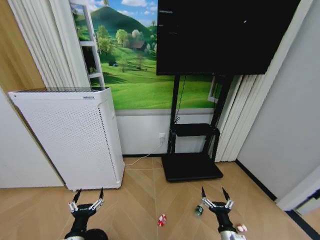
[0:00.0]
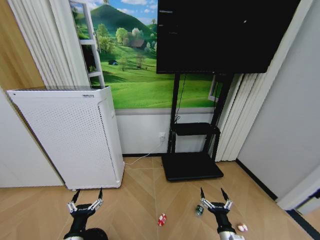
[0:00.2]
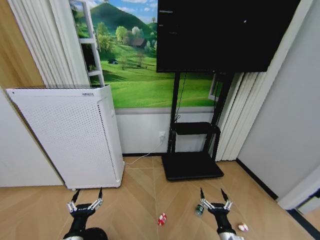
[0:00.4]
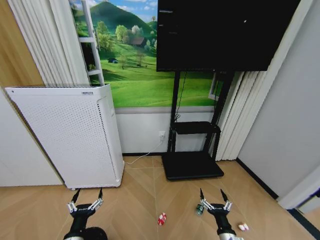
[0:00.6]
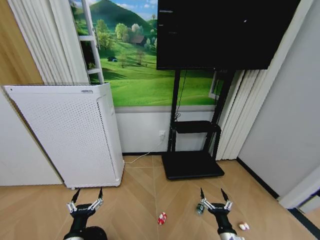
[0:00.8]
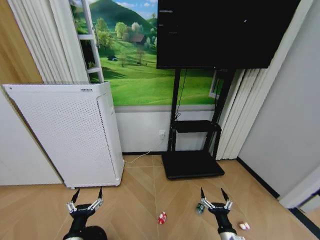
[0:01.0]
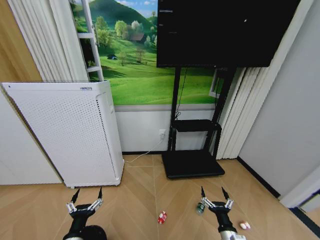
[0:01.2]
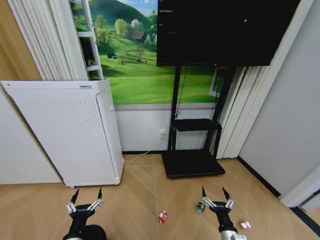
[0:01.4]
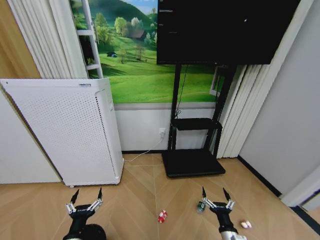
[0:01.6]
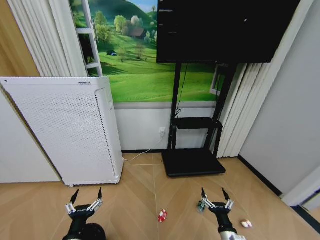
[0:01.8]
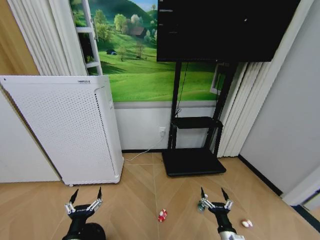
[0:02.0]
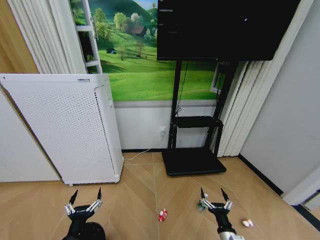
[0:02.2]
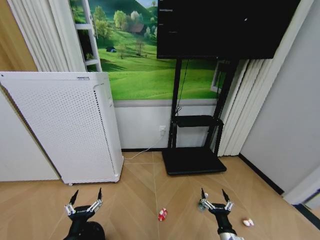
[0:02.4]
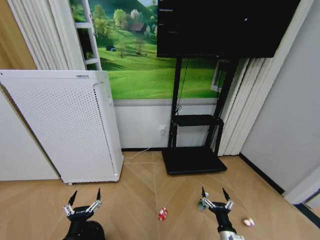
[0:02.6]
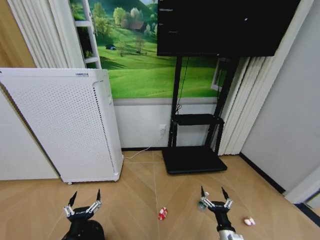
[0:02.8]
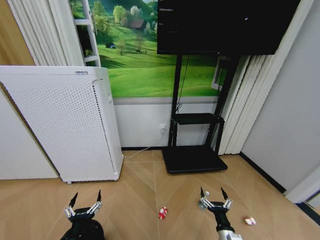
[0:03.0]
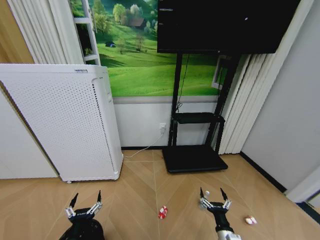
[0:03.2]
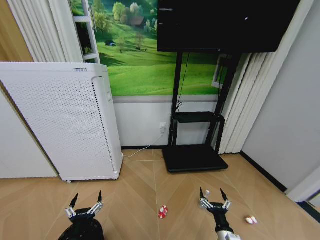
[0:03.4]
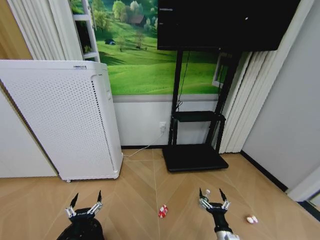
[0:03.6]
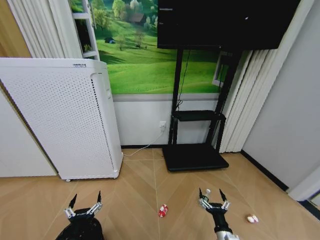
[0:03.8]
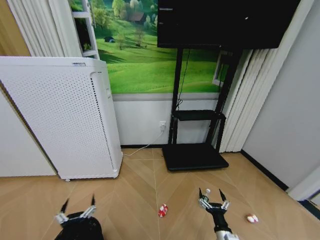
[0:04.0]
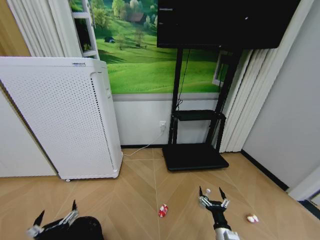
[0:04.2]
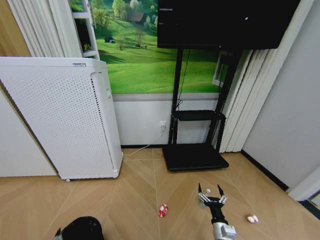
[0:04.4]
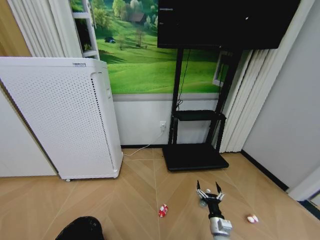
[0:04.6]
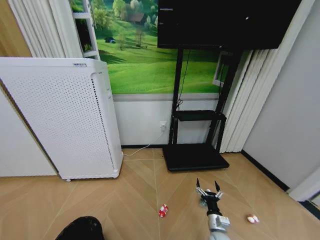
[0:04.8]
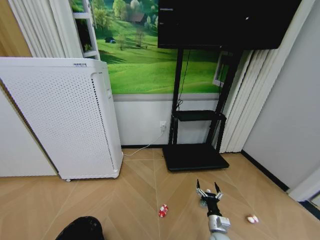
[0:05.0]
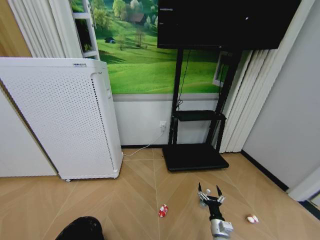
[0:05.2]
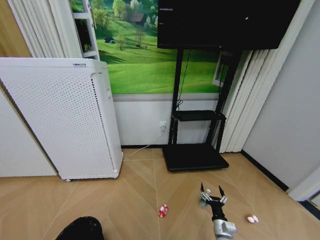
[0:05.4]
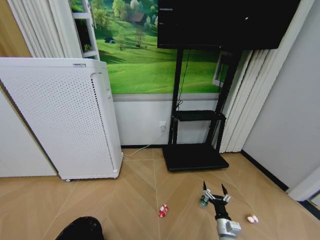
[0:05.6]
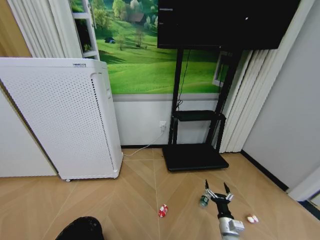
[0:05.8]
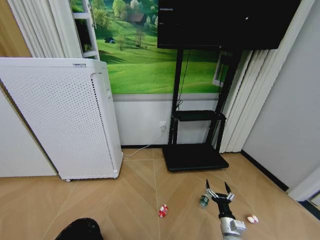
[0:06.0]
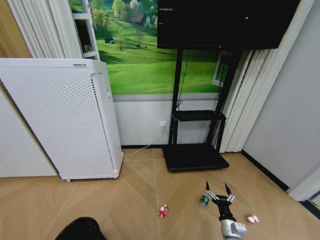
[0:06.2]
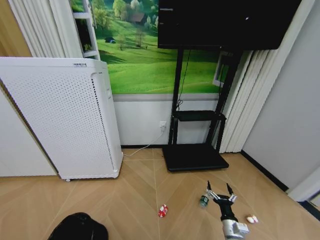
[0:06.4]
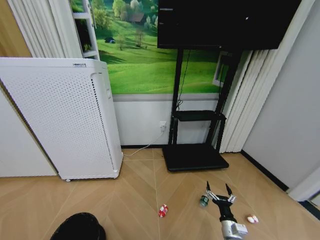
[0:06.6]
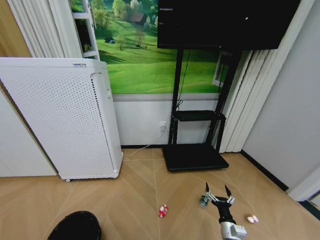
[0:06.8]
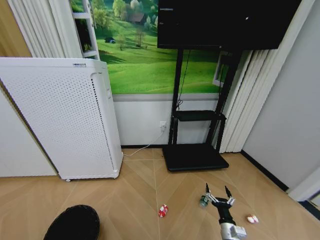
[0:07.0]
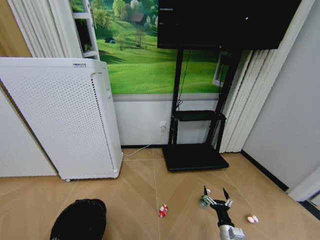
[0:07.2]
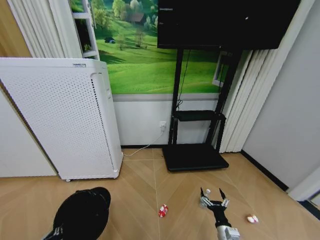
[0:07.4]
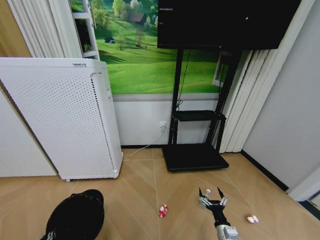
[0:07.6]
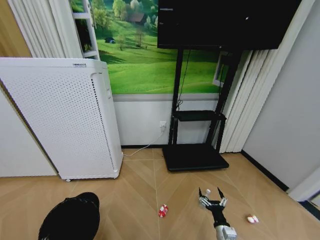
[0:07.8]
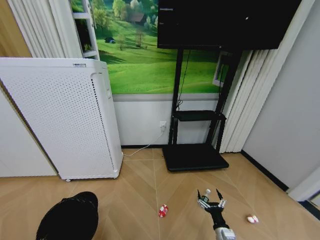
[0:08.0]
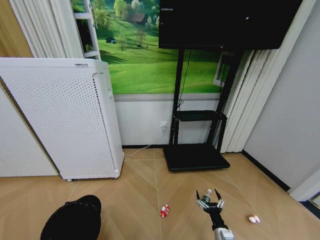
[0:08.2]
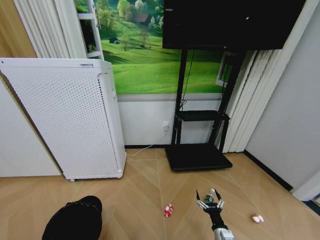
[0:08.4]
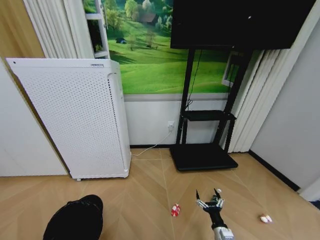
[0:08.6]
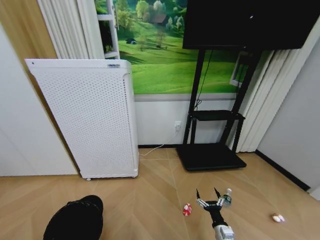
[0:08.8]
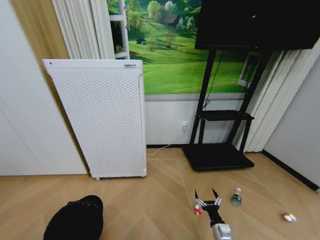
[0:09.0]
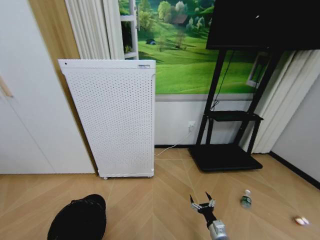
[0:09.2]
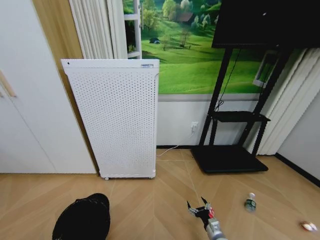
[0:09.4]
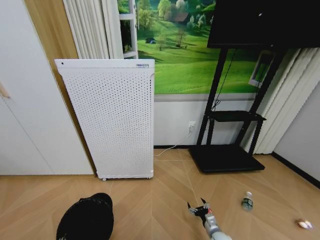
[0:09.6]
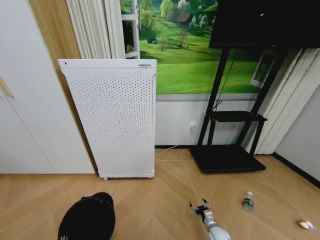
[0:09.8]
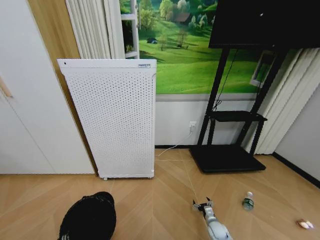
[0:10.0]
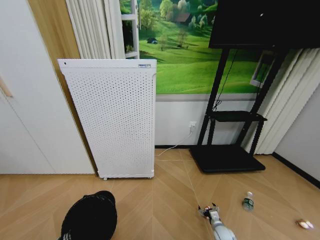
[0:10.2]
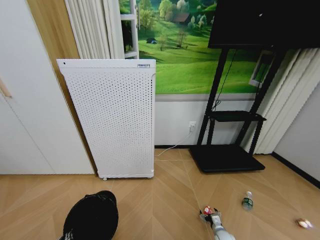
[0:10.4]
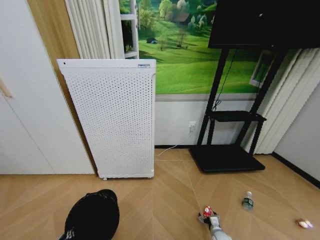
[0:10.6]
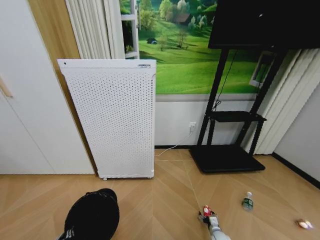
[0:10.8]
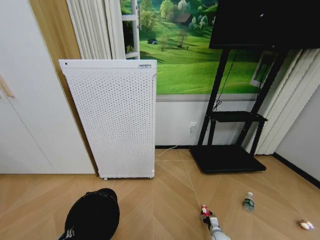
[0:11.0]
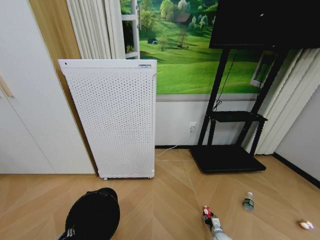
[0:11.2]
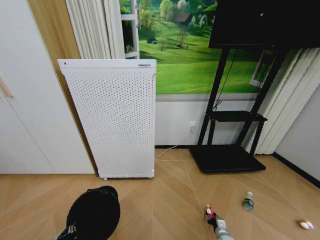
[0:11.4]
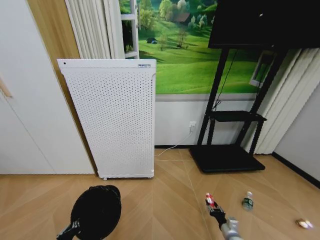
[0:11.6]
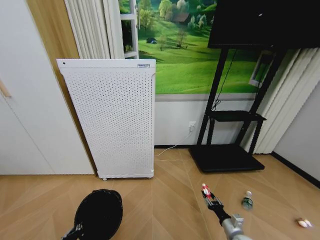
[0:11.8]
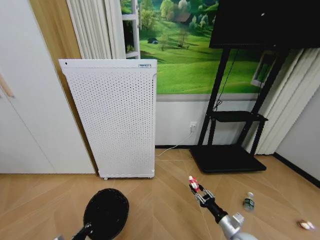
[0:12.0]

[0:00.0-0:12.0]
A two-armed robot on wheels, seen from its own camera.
Task of the whole recording: Pick up the trash bin and place the garbage on the floor into it.
0.0 to 1.6 s: Both grippers stay about where they are.
1.6 to 3.0 s: Both grippers stay about where they are.
3.0 to 4.4 s: The left gripper goes about 10 cm upward and backward.
4.4 to 6.0 s: The right gripper shifts by about 5 cm. The left gripper travels downward and to the left by some 15 cm.
6.0 to 7.6 s: The left gripper closes up.
9.0 to 10.4 s: The right gripper is displaced downward, to the right and forward by approximately 15 cm; the left gripper shifts some 5 cm to the right.
10.4 to 12.0 s: The left gripper heads forward, covering about 5 cm, while the right gripper is displaced upward by roughly 20 cm, and closes.

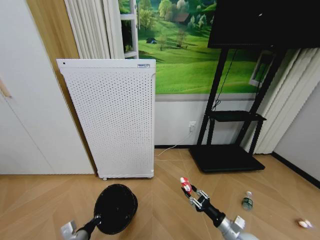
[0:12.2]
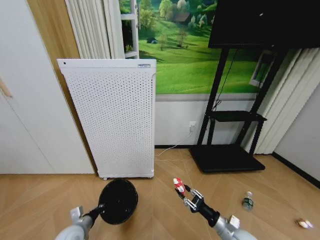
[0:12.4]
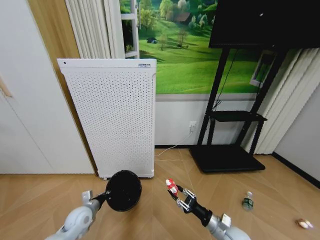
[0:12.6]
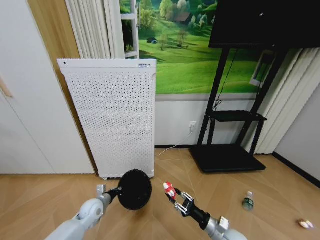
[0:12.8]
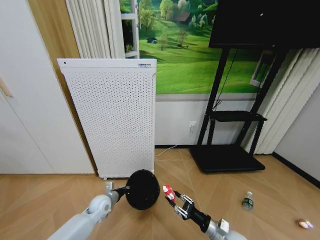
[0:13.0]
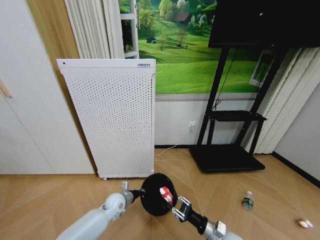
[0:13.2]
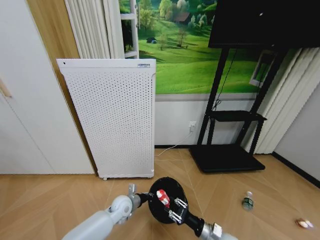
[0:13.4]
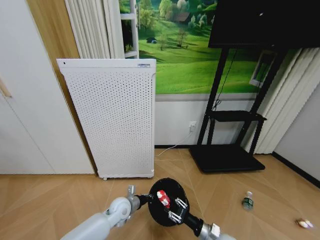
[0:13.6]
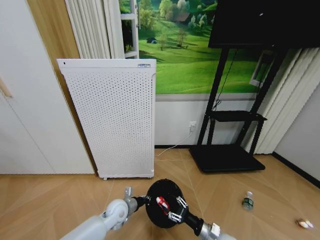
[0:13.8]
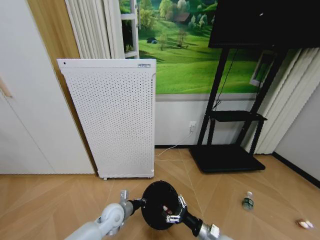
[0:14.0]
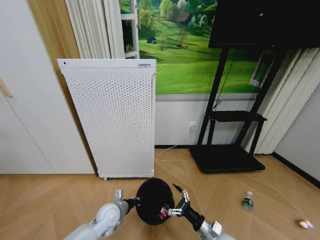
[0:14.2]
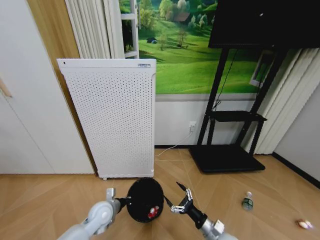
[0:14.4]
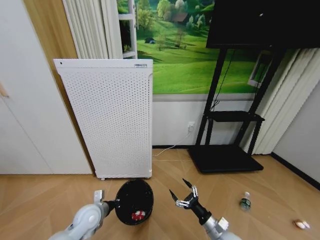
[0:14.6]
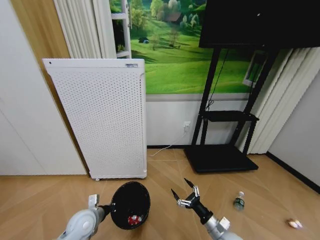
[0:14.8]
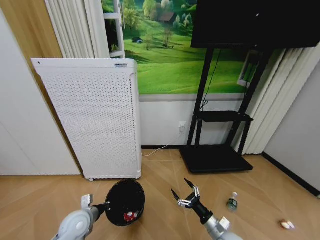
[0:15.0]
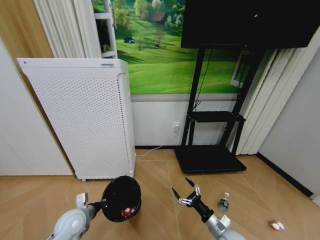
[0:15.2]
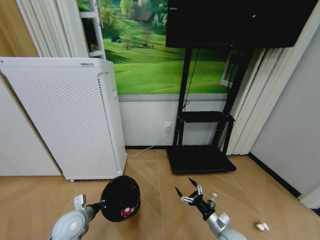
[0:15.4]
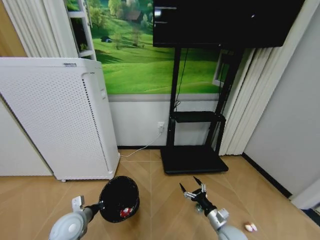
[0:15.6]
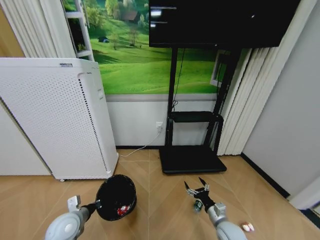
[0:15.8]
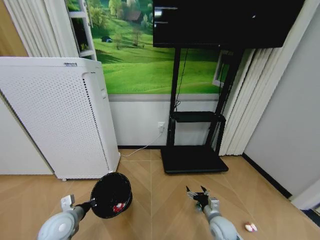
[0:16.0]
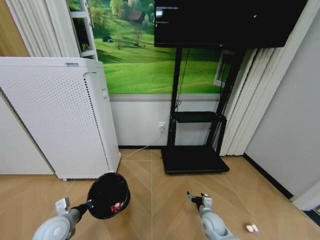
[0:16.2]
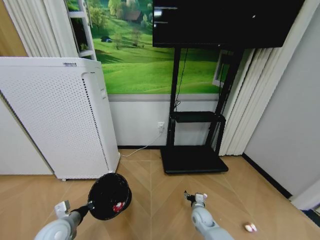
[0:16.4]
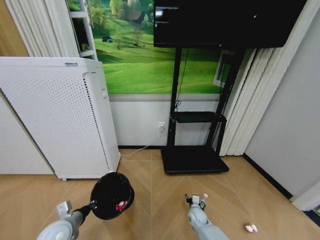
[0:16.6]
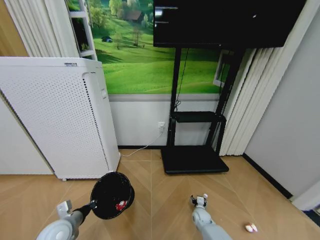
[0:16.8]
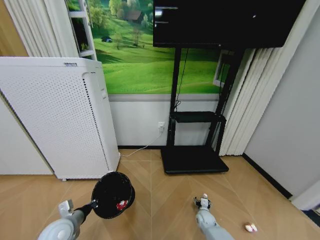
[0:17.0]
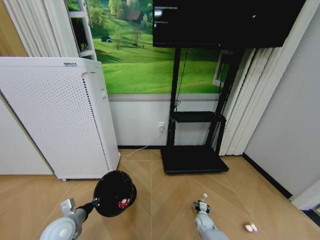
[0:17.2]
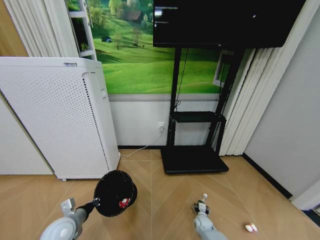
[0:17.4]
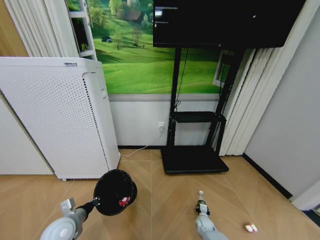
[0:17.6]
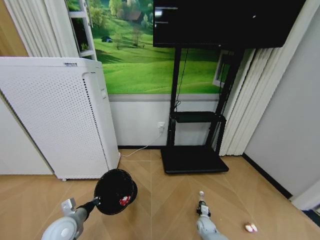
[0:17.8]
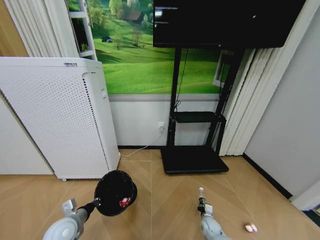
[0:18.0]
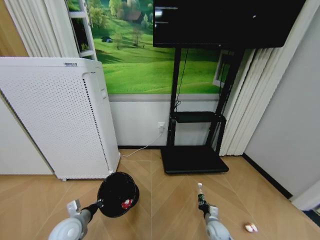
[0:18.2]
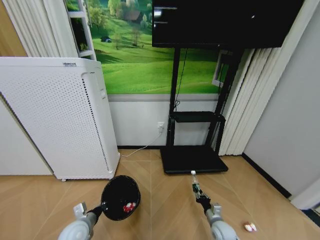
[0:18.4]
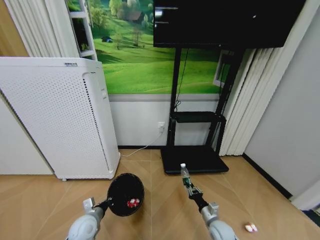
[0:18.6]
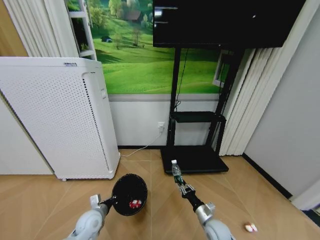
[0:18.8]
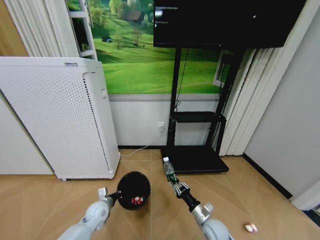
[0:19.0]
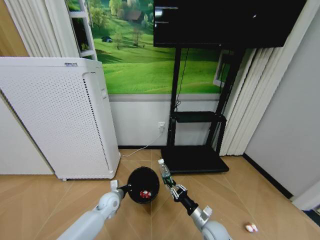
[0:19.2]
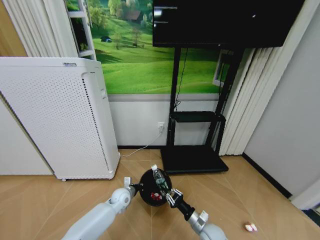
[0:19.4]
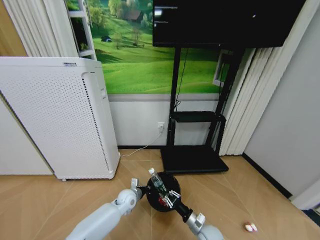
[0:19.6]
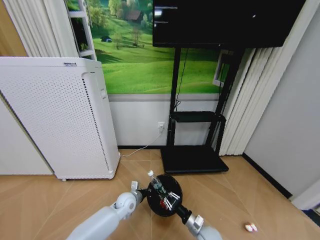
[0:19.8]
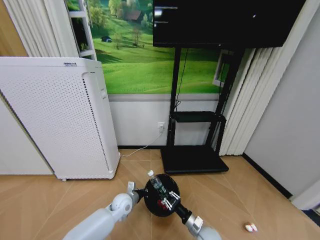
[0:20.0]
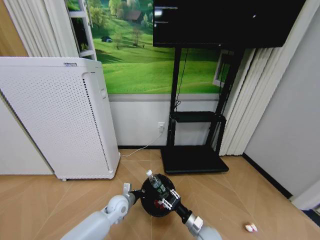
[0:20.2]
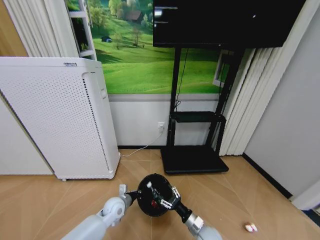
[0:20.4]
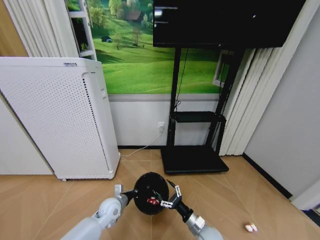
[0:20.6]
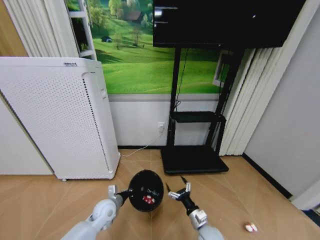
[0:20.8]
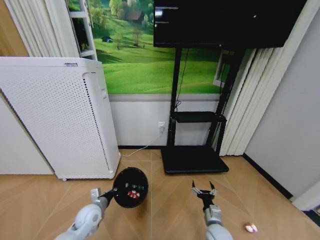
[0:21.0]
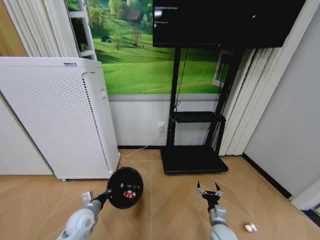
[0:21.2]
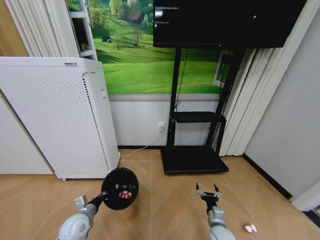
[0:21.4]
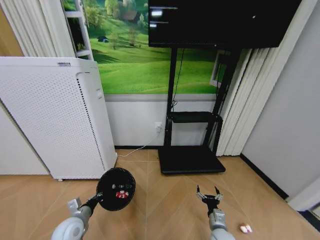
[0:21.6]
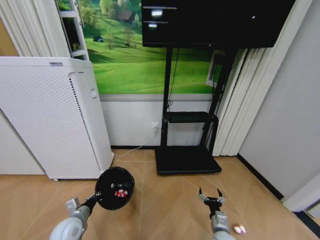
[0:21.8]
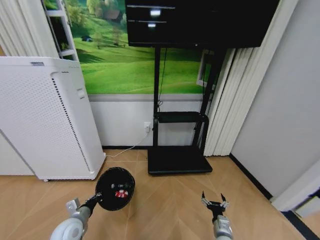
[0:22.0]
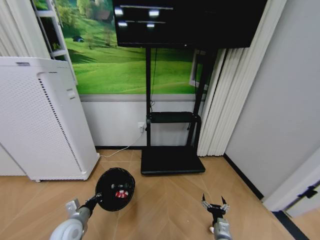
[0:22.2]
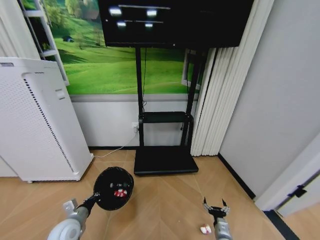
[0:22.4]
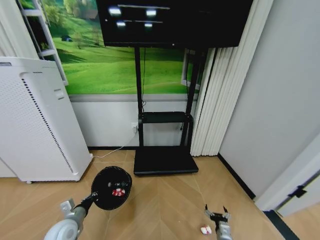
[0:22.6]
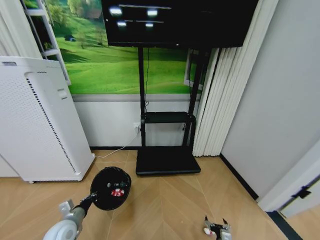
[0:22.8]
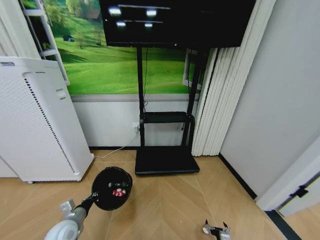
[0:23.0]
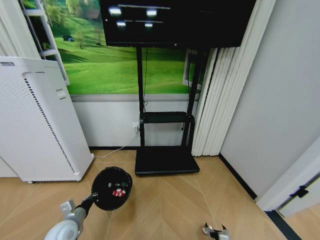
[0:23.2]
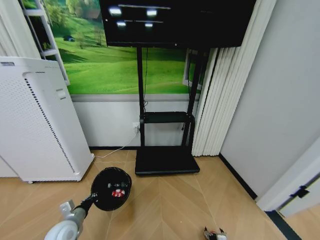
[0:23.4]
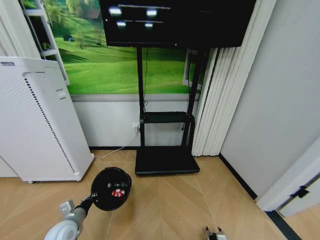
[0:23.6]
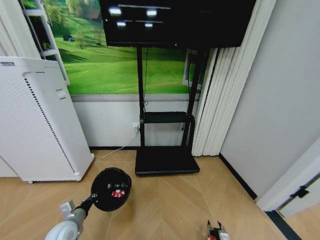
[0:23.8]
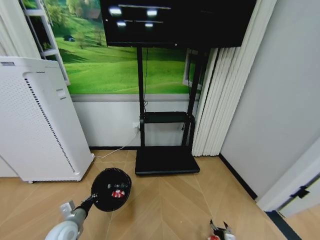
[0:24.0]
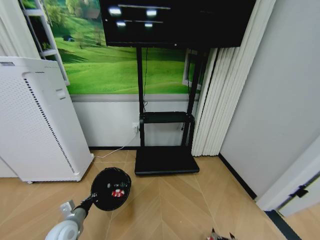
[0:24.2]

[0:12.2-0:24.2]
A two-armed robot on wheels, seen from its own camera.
Task of the whole recording: Pick up the trash bin and place the garbage on the floor into it.
12.2 to 13.8 s: The right gripper is displaced to the left by roughly 5 cm. The left gripper is displaced to the right and forward by approximately 20 cm.
13.8 to 15.2 s: The right gripper opens its fingers; the left gripper shifts approximately 15 cm to the left, backward and upward.
15.2 to 16.6 s: The left gripper shifts by approximately 5 cm, while the right gripper travels forward and downward by approximately 20 cm.
16.6 to 18.2 s: The right gripper is displaced to the right and backward by some 10 cm, and closes its fingers.
18.2 to 19.8 s: The right gripper moves to the left and upward, about 10 cm; the left gripper goes approximately 25 cm to the right and forward.
19.8 to 21.2 s: The right gripper ends up some 5 cm from where it was, and opens its fingers; the left gripper shifts about 20 cm to the left and backward.
21.2 to 22.6 s: The right gripper goes some 10 cm downward. Meanwhile the left gripper moves approximately 5 cm.
22.6 to 24.2 s: The right gripper heads backward, covering some 5 cm, and closes, then reopens.
